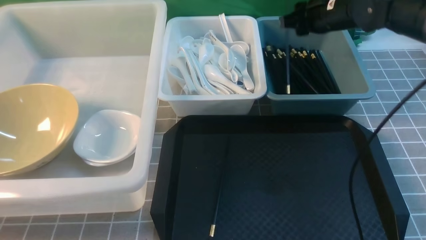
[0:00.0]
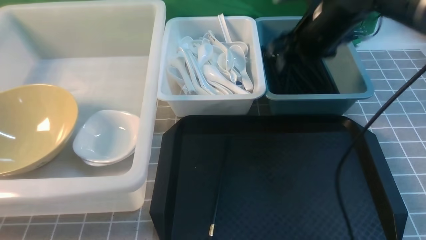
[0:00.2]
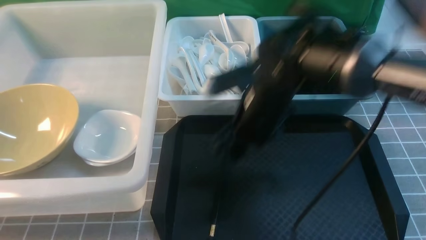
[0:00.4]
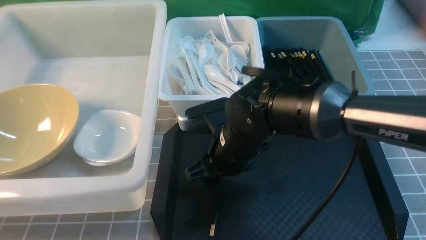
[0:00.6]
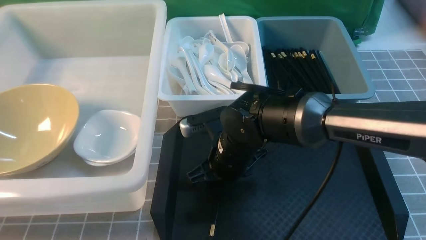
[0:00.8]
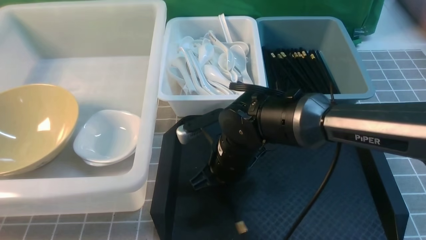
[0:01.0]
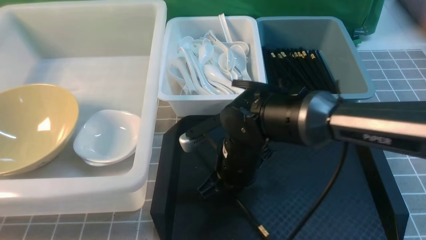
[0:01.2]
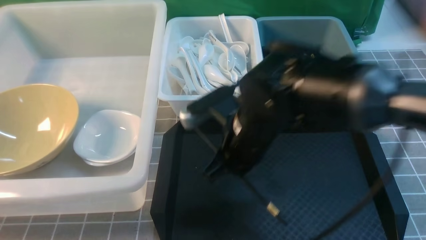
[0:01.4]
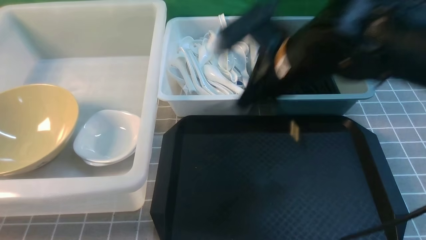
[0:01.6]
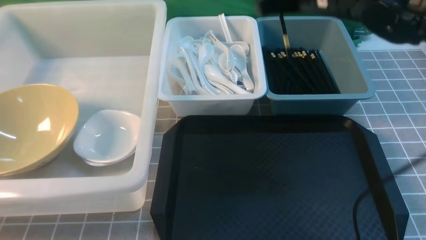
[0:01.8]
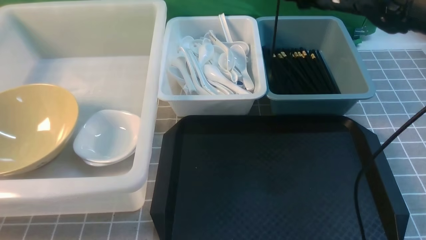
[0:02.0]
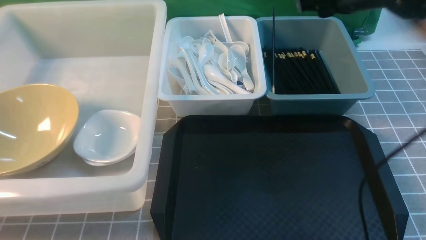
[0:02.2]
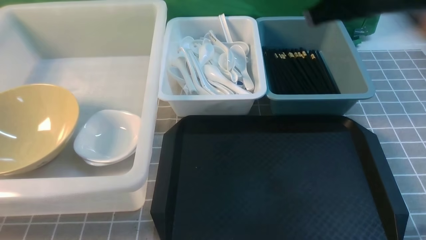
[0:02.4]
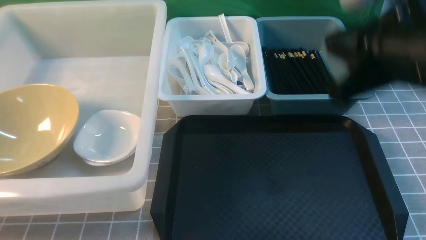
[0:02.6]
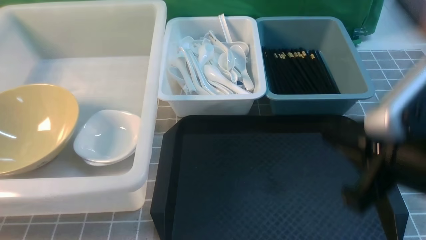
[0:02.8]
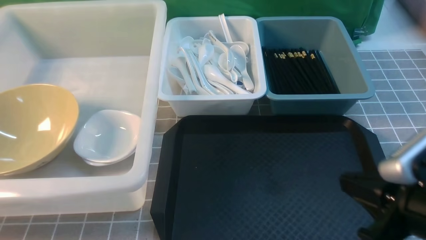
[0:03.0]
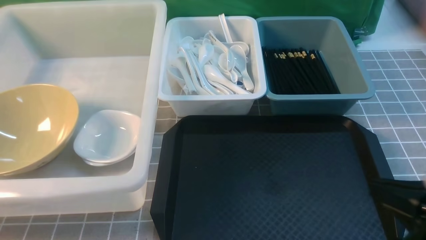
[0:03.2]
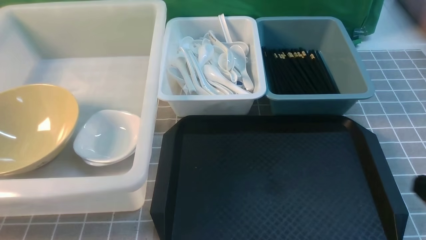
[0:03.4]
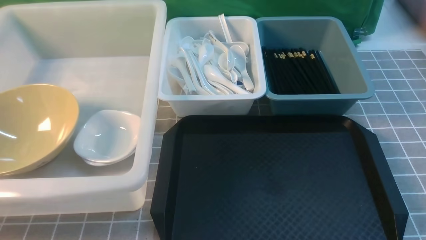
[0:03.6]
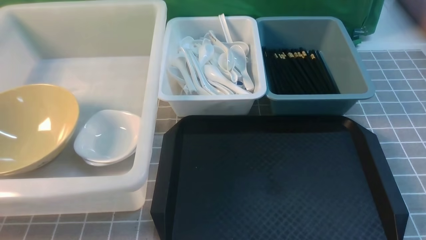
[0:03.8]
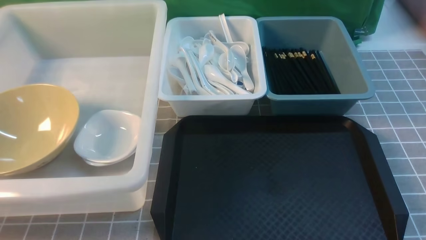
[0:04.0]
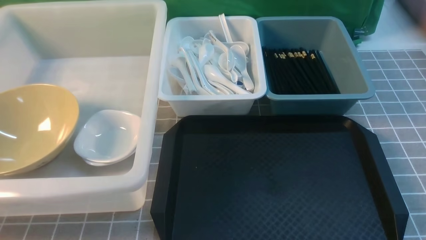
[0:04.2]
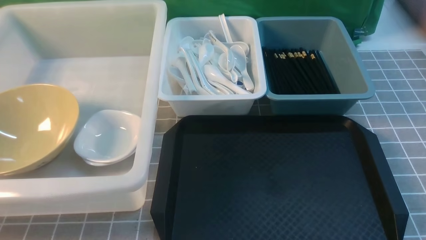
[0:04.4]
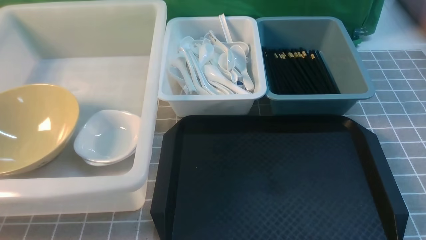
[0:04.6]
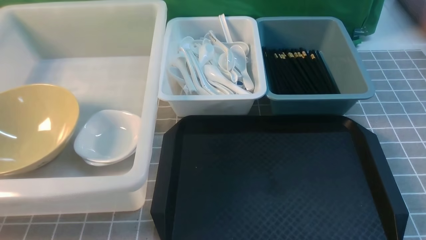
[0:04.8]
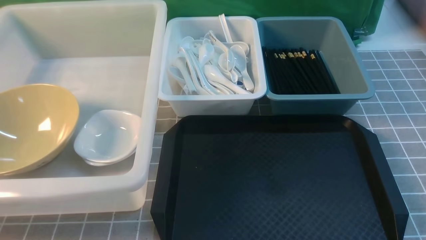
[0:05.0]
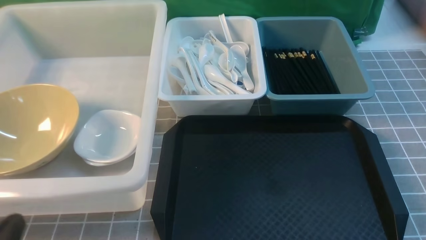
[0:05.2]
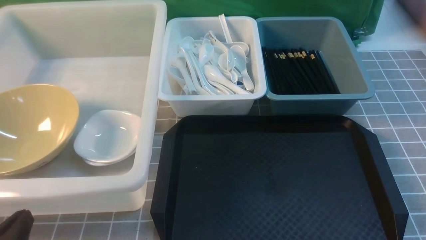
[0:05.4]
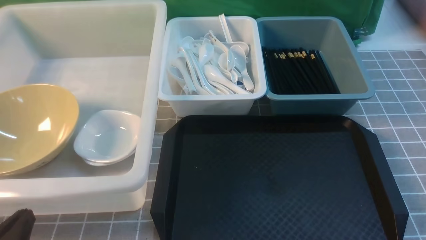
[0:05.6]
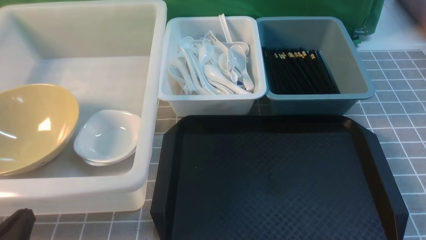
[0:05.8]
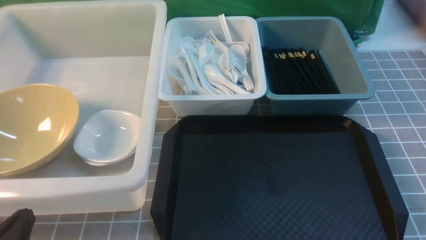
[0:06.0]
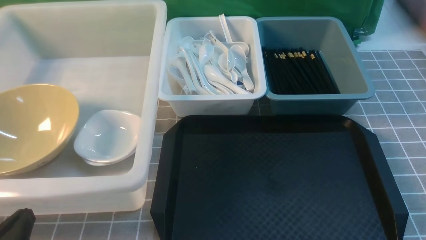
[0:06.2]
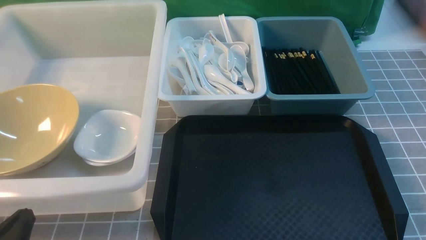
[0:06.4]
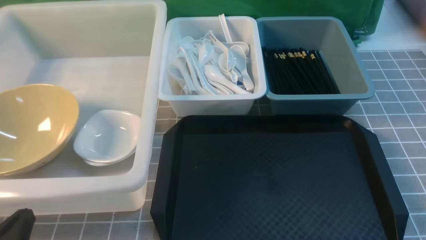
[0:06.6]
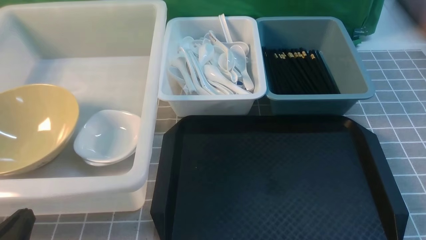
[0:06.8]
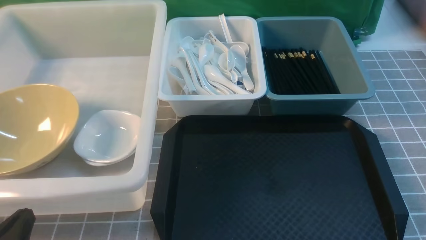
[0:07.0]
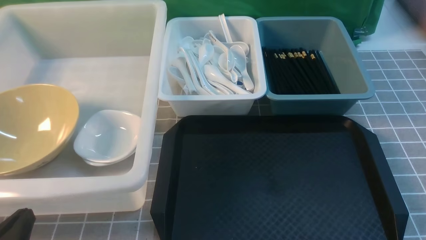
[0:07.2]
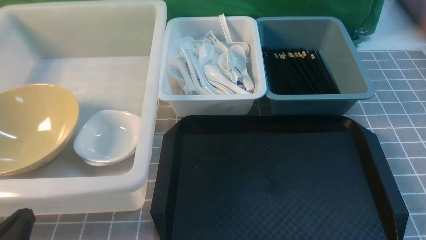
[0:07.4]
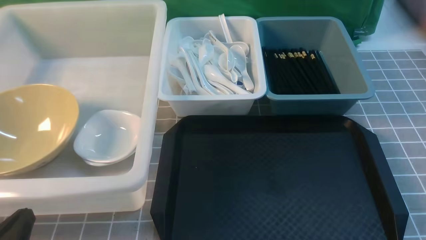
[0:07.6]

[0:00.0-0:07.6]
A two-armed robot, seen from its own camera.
Task of the whole recording: on grey table put chopsticks spoon bowls plates into blue grey white boxes.
Step, 0:00.2 to 0:01.2: use the right arm to grab a chopstick.
Step, 0:01.6 to 0:02.2: use the right arm to put a chopstick into the small storage box on the right.
0:00.0 to 0:01.6: The right gripper heads backward and to the left, covering roughly 10 cm, goes downward and returns, approximately 10 cm each way, and closes its fingers.
0:01.6 to 0:03.0: The right gripper goes about 25 cm backward and to the right, and opens, then closes again.
0:03.0 to 0:04.6: The right gripper heads downward, to the right and backward, covering about 15 cm.
0:04.6 to 0:06.0: The left gripper moves downward, approximately 10 cm.
0:06.0 to 0:07.6: The two grippers keep their place.
